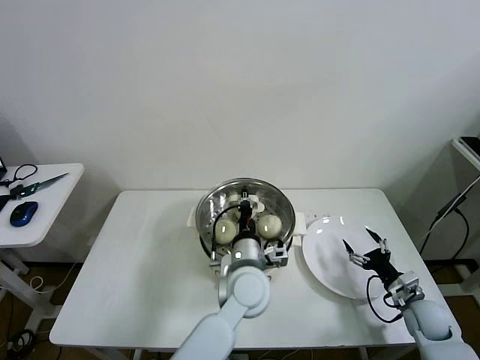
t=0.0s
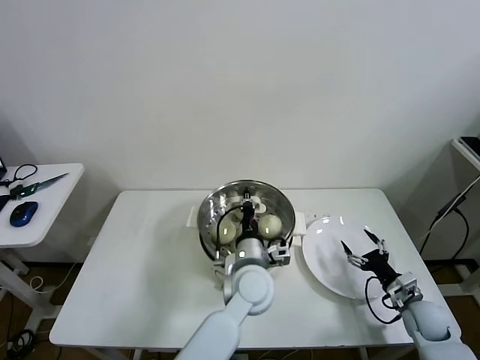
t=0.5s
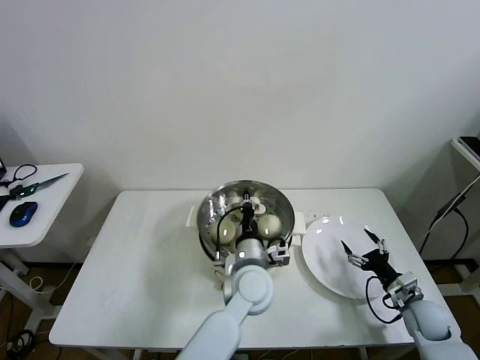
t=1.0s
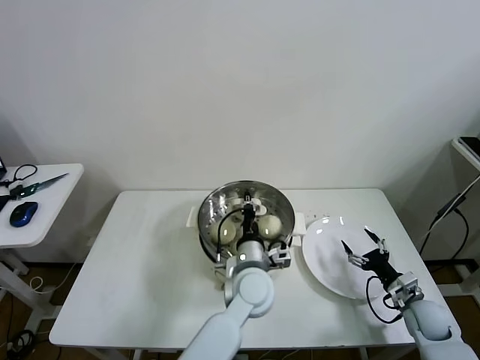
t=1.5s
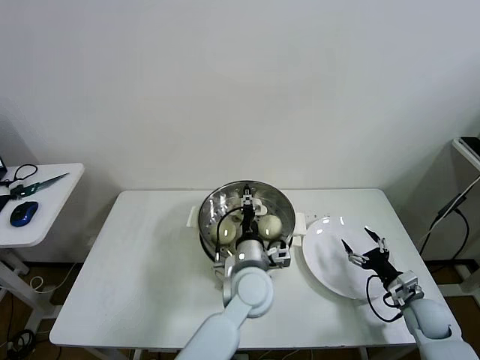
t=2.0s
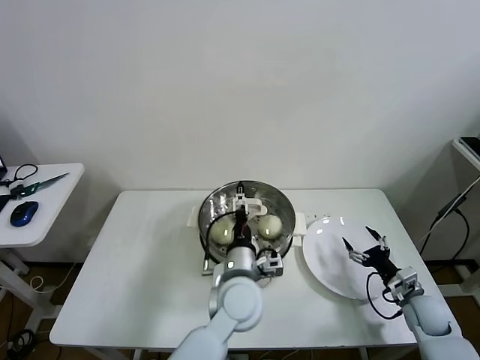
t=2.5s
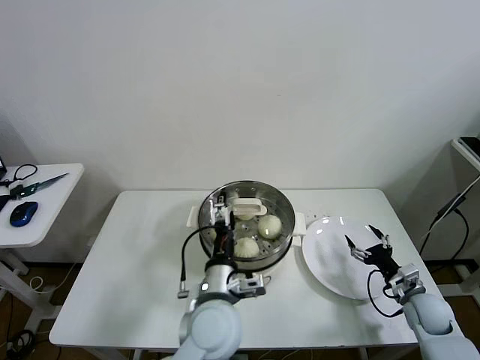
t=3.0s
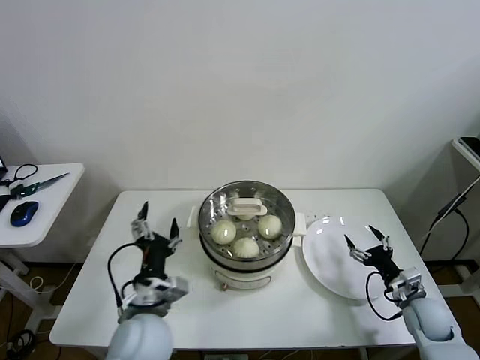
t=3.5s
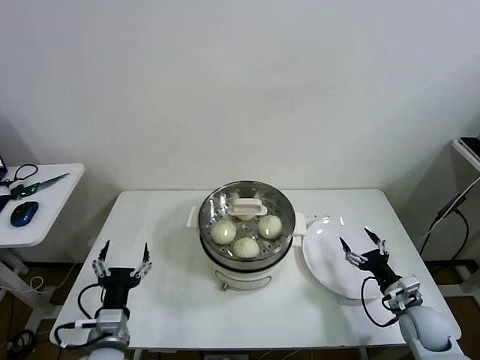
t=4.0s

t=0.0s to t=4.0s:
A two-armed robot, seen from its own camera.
Task of the whole recording: take steamed baozi put them in steamer then cover it.
t=0.0s to t=2.0s: There are only small adjustments of the grippers.
t=2.0s to t=4.0s: The left gripper shifts roughly 30 cm to the left and backward, and opens its fingers.
